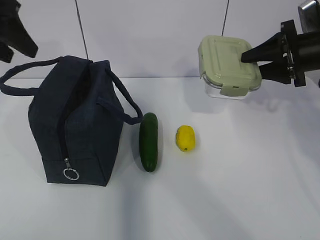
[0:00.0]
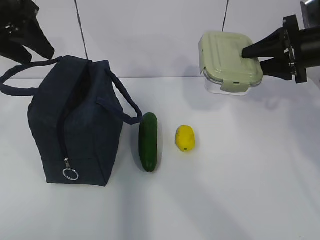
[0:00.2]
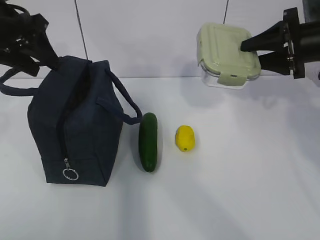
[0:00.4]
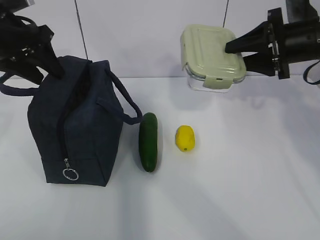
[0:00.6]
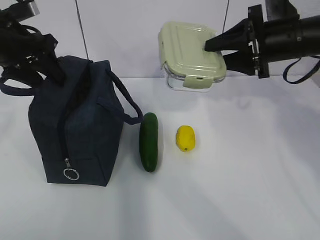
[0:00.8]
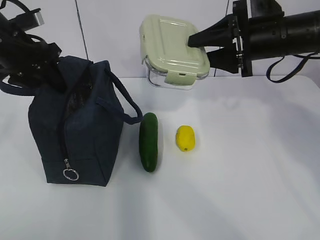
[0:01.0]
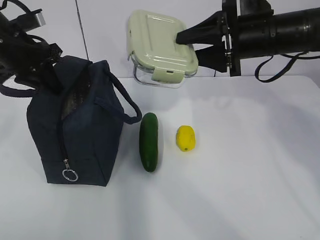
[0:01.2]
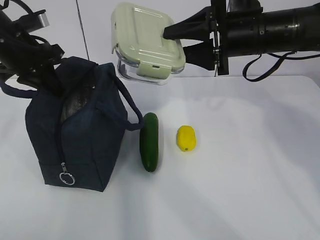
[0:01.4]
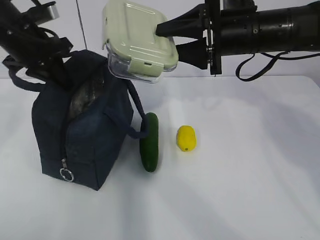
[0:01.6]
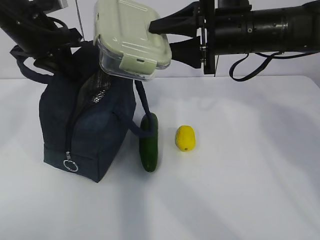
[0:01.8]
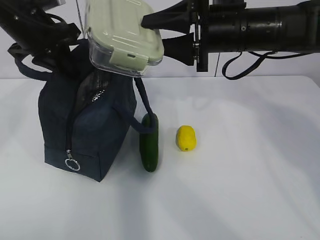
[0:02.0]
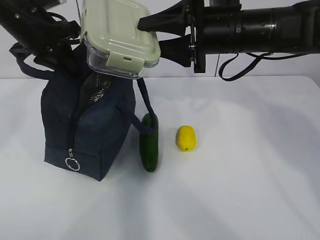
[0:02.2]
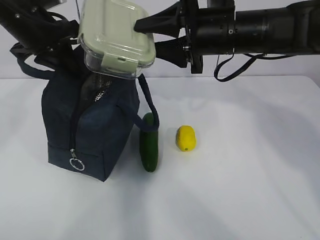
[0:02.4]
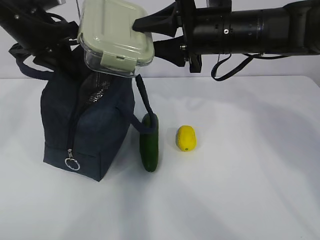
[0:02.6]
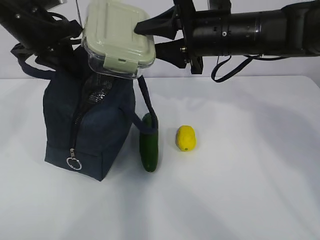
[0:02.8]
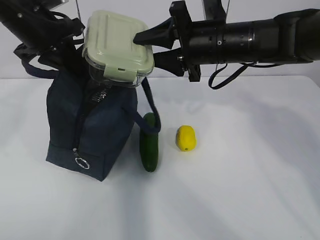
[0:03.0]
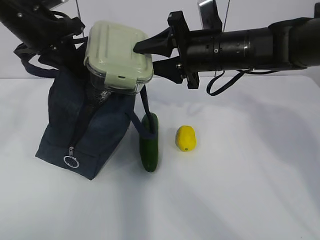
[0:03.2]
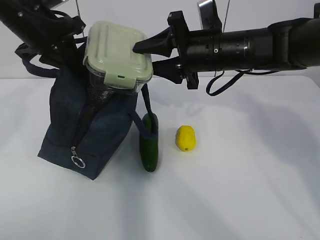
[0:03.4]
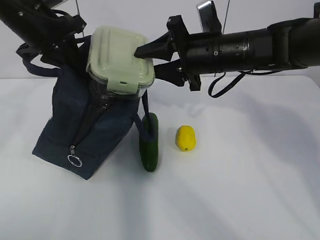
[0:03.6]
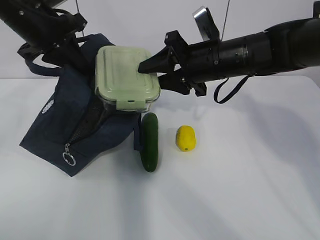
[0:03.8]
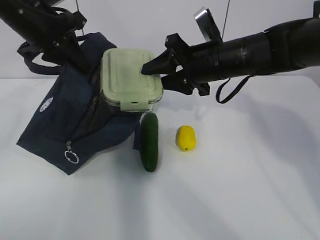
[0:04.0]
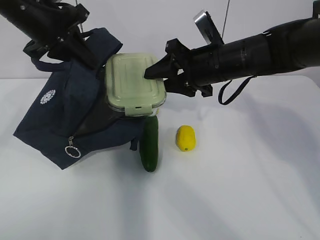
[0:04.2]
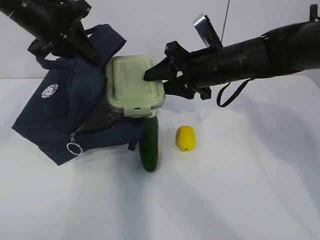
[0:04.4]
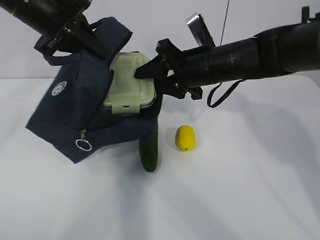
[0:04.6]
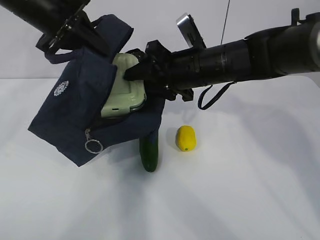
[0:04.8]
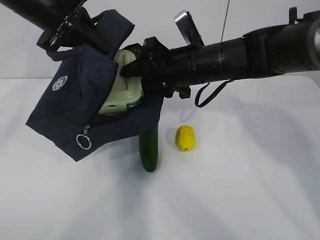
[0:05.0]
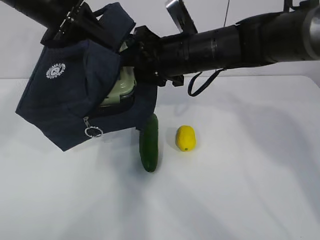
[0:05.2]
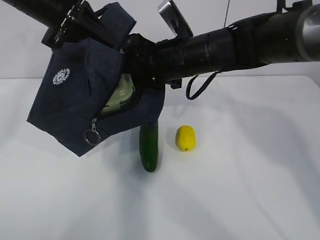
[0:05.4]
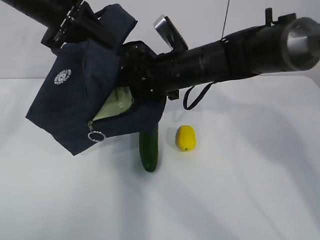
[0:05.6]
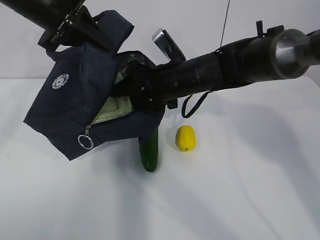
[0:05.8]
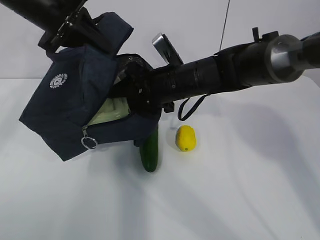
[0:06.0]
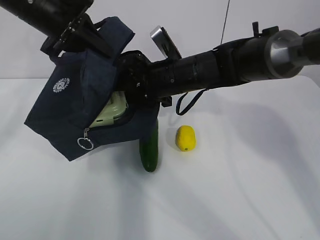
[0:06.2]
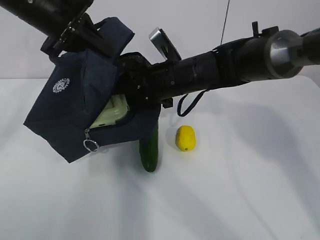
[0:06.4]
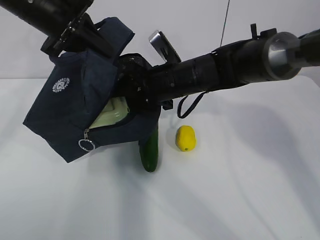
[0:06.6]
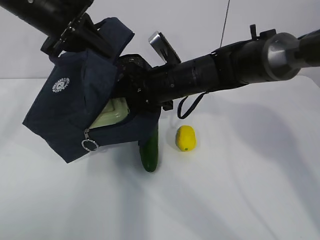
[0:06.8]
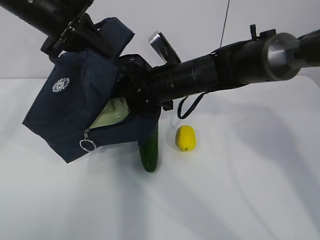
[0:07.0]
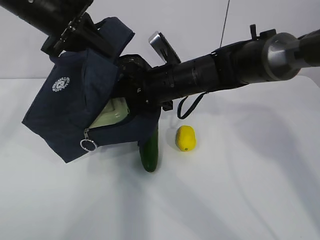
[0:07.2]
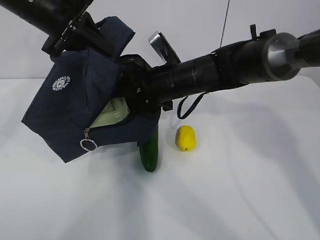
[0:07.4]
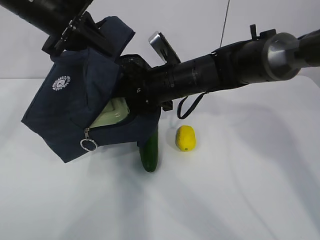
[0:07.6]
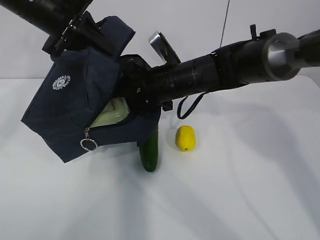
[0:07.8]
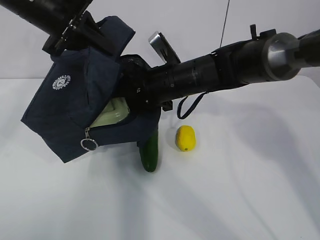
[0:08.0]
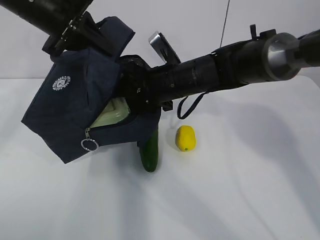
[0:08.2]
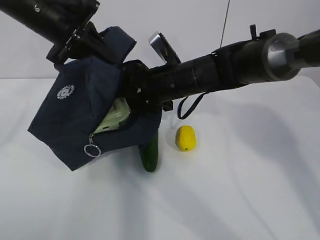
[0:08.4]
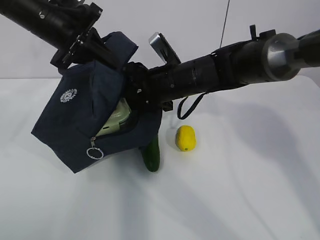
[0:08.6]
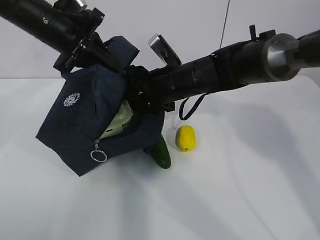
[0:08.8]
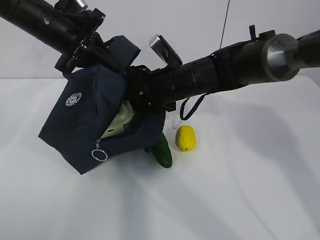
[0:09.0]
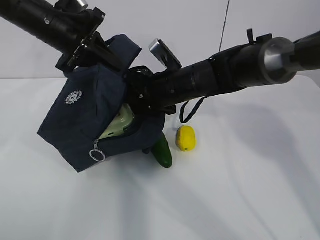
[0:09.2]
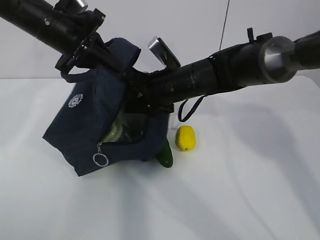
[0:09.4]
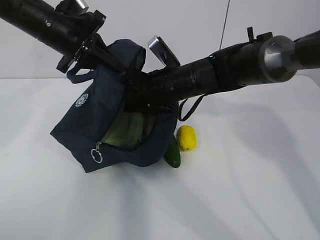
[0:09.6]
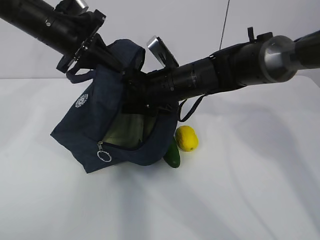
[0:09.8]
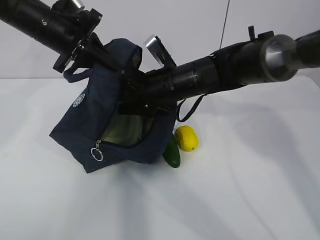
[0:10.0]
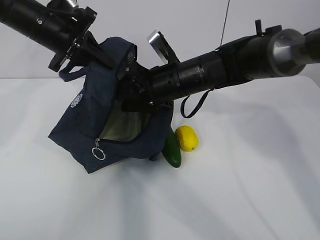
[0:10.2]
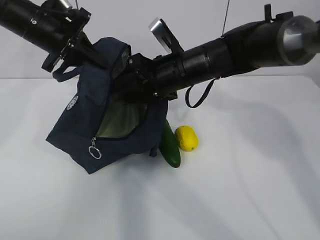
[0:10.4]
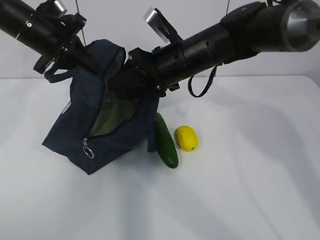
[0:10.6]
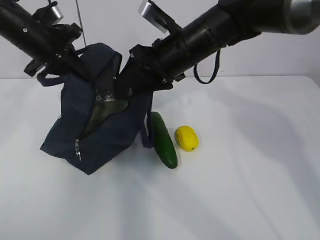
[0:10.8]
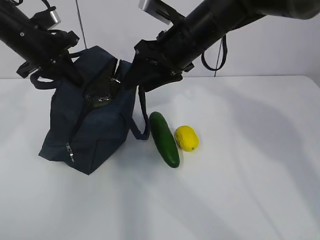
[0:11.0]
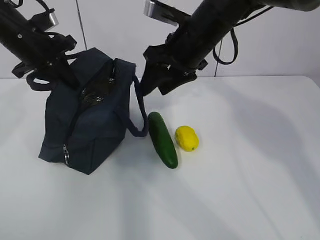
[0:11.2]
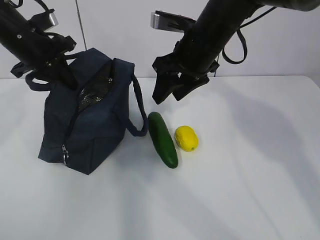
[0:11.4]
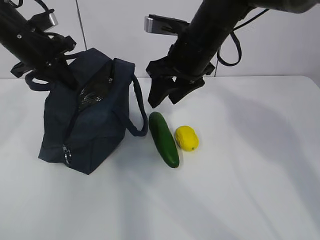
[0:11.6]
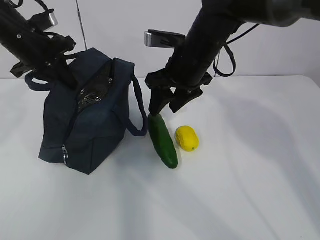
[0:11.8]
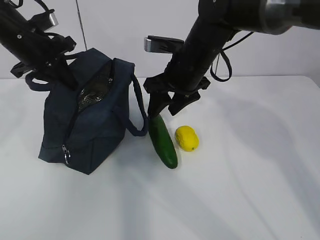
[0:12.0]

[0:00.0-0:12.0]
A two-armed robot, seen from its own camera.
Step, 0:00.4 to 0:05.8: Place it into the bag with your right hand.
Step, 0:06.0 to 0:10.2: Grab the cucumber with your right hand.
0:00.0 to 0:01.6: The right gripper goes about 15 cm to the left, while the left gripper travels downward and forward by some 10 cm, and closes up.
0:04.4 to 0:06.0: The right gripper travels to the left by roughly 5 cm.
0:06.0 to 0:07.6: Both grippers stay about where they are.
0:07.6 to 0:10.4: The grippers move only a little.

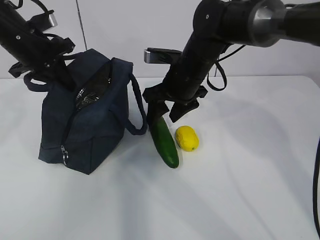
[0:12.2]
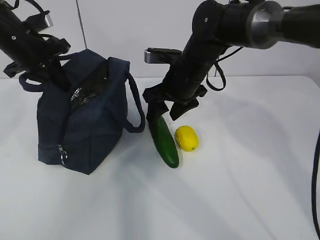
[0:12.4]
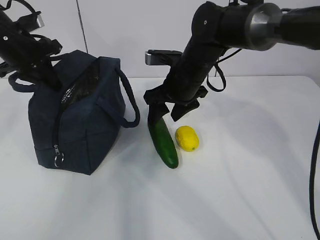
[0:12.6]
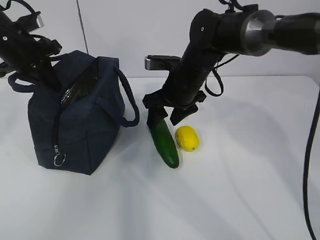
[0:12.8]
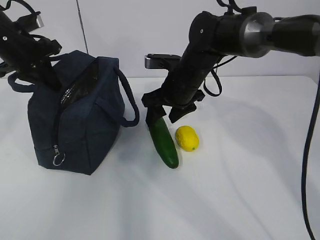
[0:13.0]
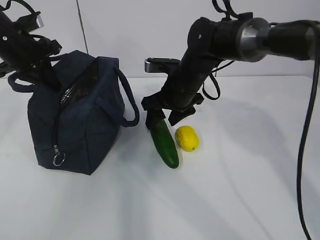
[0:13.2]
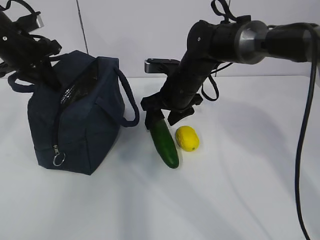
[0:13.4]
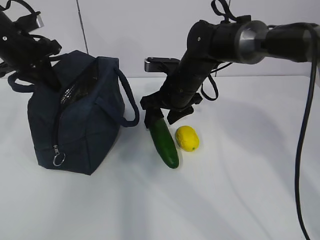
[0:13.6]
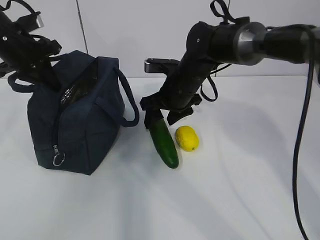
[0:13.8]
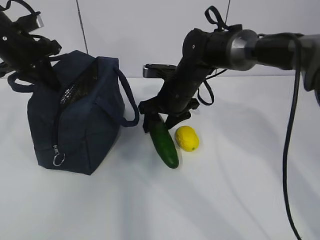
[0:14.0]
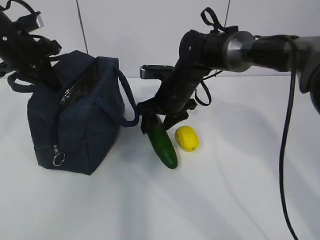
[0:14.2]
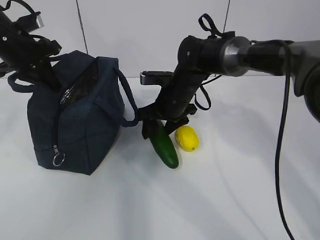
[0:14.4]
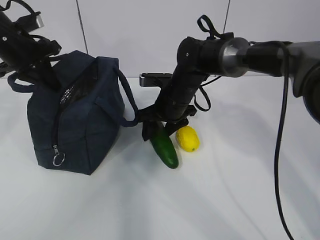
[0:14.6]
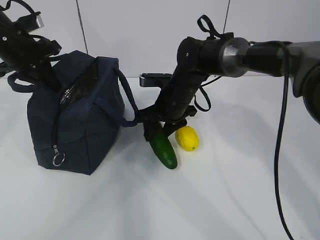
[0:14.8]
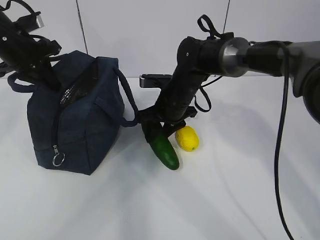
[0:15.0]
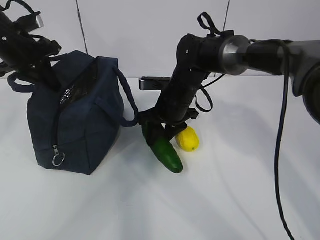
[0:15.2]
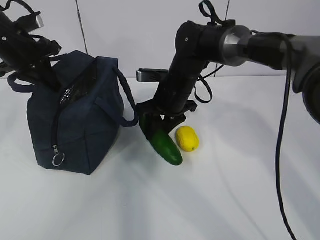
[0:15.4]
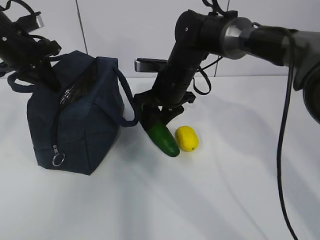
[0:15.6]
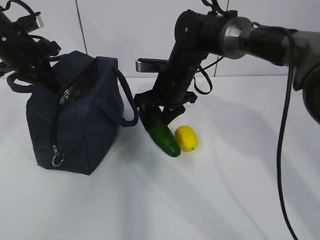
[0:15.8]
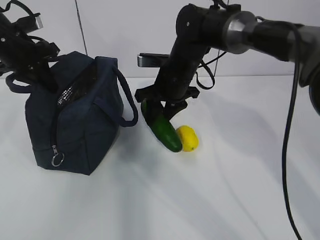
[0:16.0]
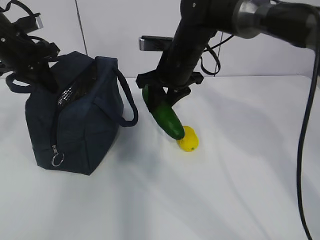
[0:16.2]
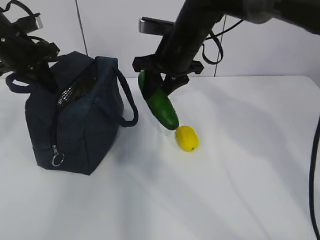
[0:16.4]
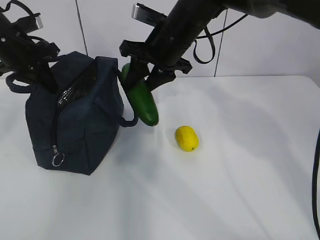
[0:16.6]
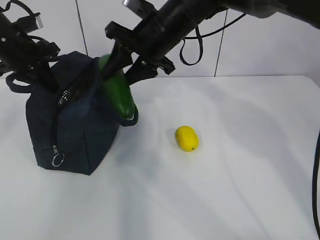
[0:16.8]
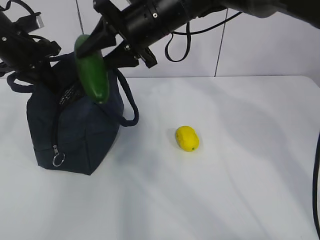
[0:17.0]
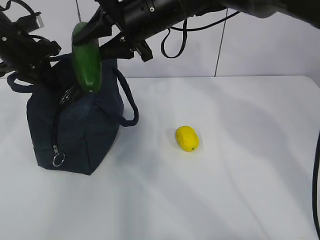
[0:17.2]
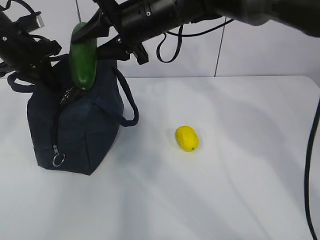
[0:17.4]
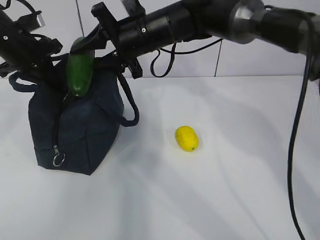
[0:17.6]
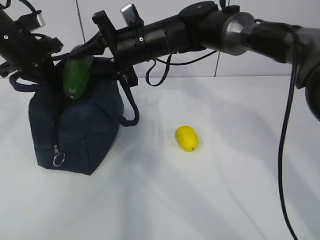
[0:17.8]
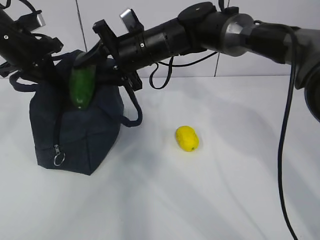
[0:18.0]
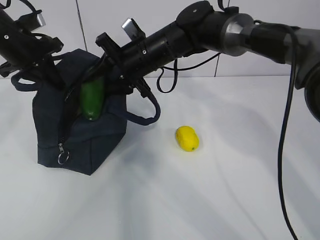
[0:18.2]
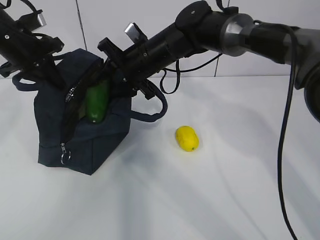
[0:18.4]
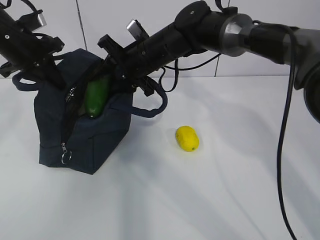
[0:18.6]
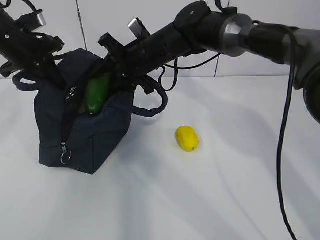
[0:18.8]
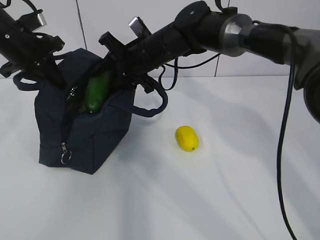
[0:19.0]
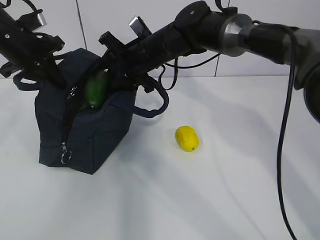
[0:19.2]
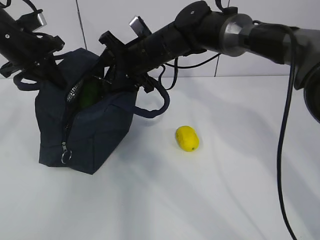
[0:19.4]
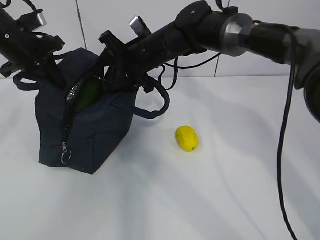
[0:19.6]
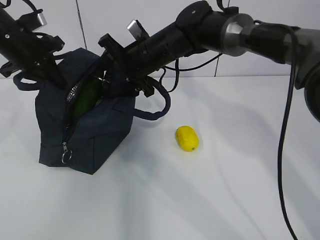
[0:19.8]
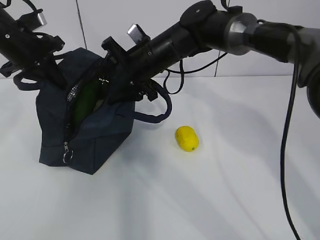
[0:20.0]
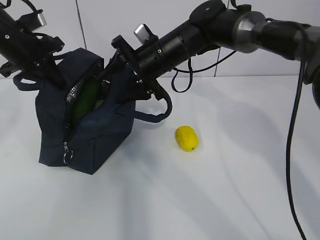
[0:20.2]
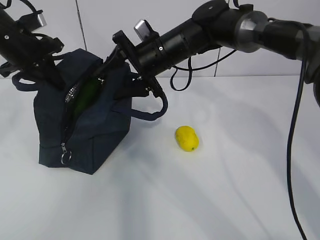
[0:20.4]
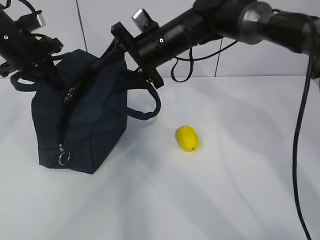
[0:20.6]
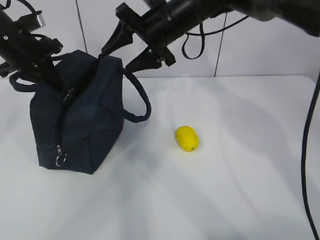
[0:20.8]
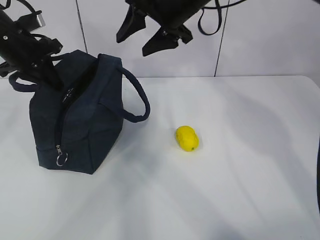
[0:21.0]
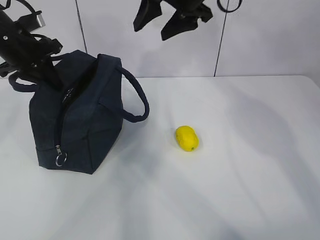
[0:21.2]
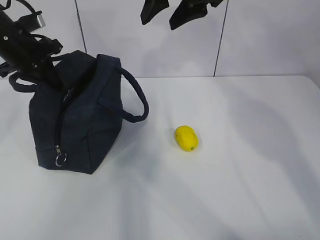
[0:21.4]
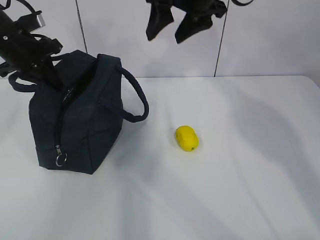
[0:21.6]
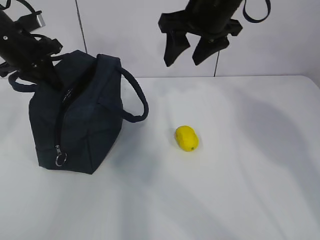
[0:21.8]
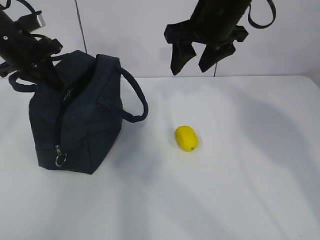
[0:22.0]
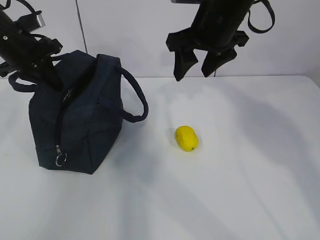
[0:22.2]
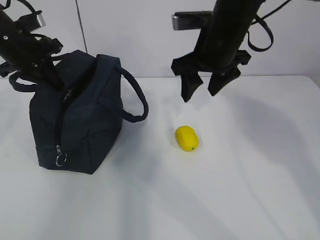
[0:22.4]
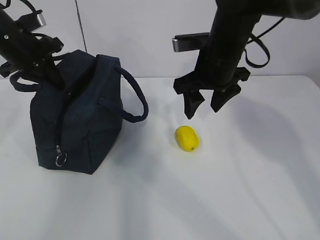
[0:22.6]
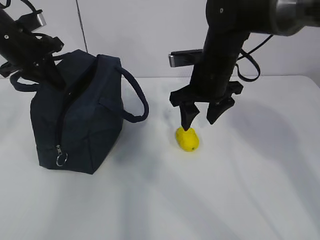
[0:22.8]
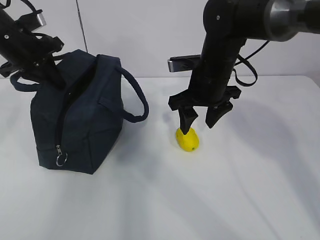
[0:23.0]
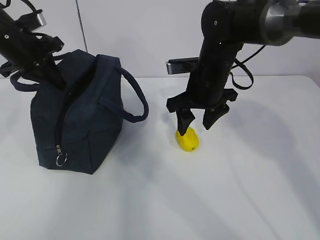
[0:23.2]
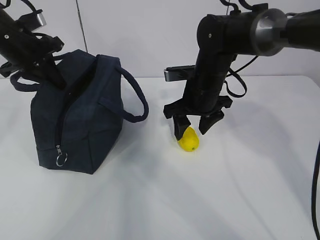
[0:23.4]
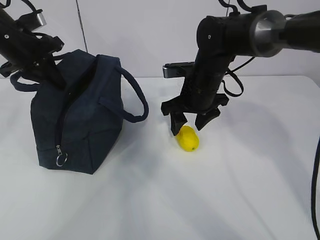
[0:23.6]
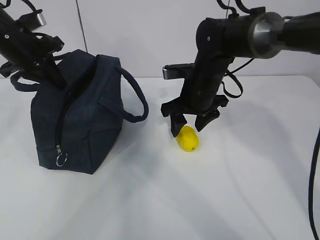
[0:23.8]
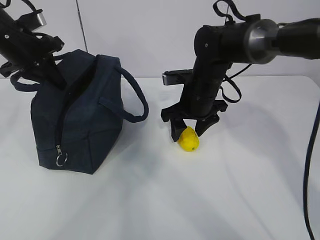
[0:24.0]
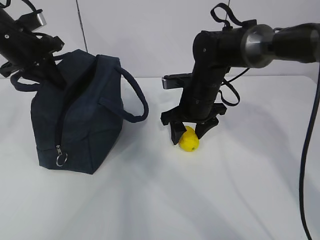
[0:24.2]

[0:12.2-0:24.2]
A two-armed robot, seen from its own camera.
Step, 0:12.2 to 0:14.2: Place it into the bag with your right hand.
Step, 0:14.4 to 0:20.2: Grab the lemon with your right hand.
0:12.2 to 0:13.8: There are only small adjustments of the grippers.
0:13.8 to 0:15.2: The right gripper closes.
0:15.2 to 0:16.6: The right gripper moves upward, roughly 15 cm.
0:16.6 to 0:18.2: The right gripper changes place by some 5 cm.
0:18.2 to 0:19.8: The right gripper opens.
0:19.8 to 0:21.2: The right gripper travels upward and to the right by some 15 cm.
0:21.2 to 0:22.6: The right gripper shifts about 10 cm downward.
0:22.6 to 0:24.2: The right gripper goes roughly 10 cm downward.
